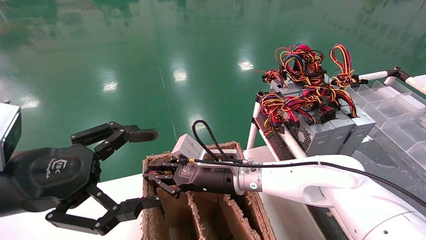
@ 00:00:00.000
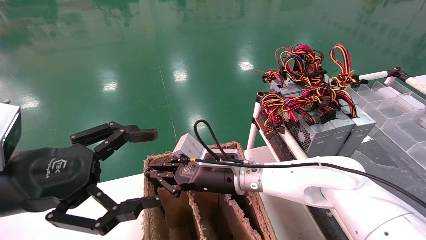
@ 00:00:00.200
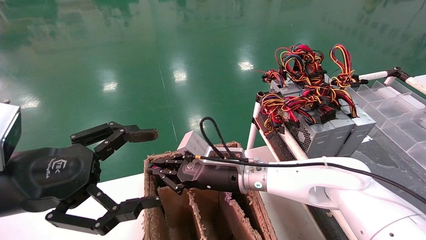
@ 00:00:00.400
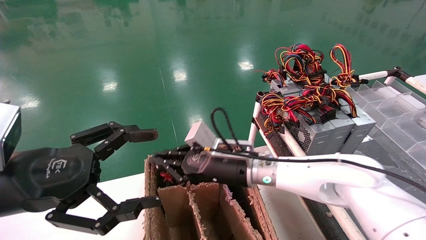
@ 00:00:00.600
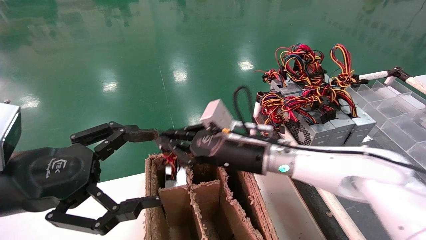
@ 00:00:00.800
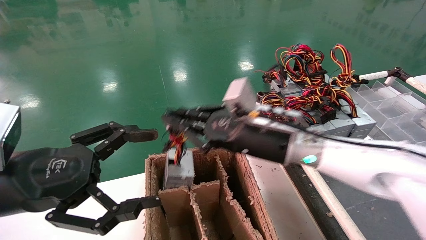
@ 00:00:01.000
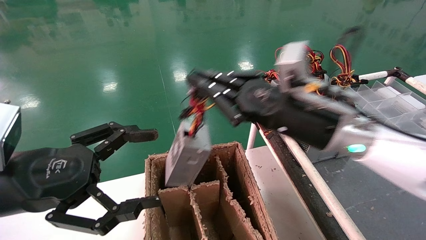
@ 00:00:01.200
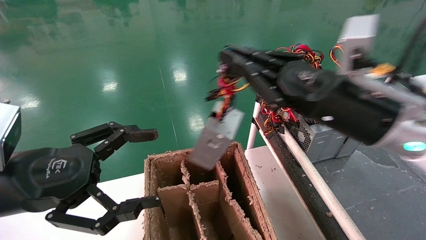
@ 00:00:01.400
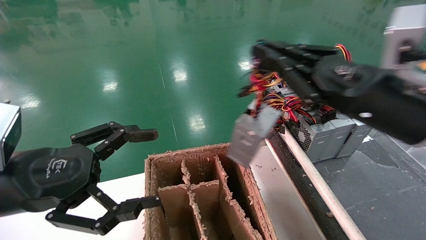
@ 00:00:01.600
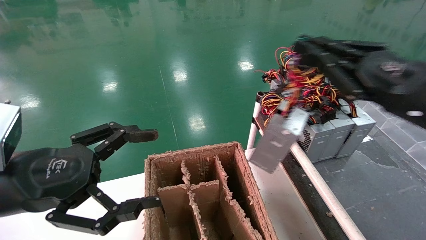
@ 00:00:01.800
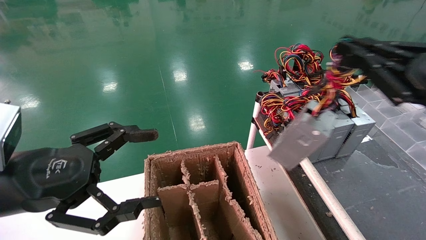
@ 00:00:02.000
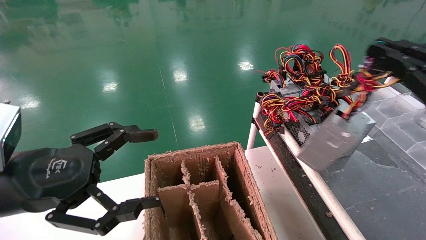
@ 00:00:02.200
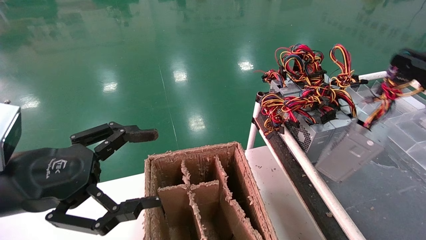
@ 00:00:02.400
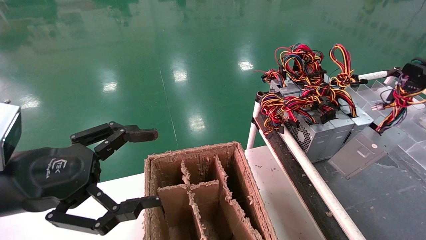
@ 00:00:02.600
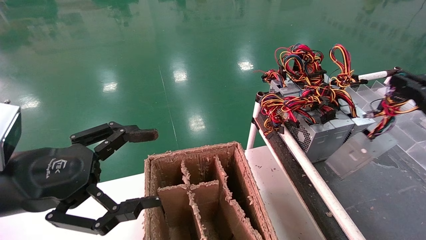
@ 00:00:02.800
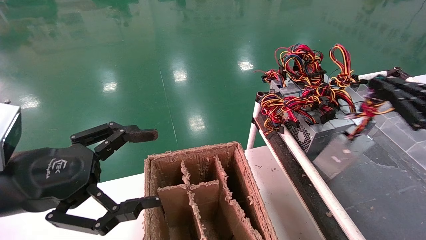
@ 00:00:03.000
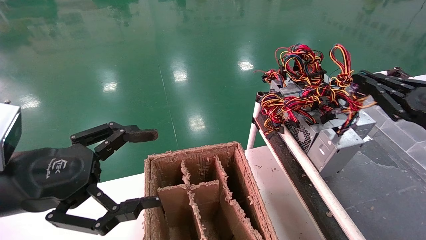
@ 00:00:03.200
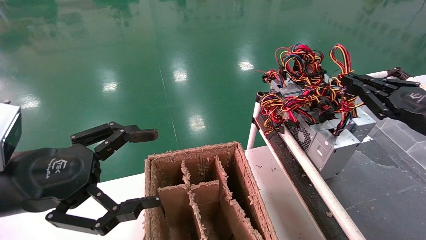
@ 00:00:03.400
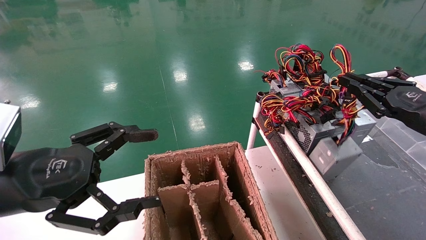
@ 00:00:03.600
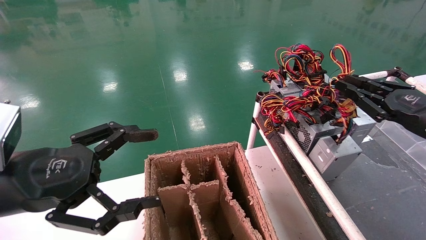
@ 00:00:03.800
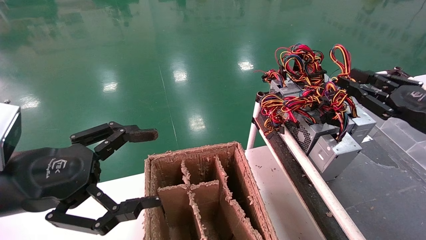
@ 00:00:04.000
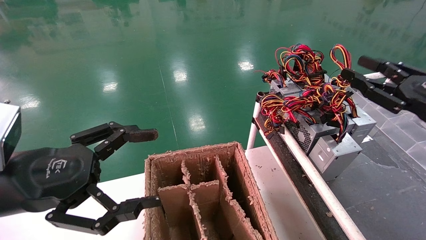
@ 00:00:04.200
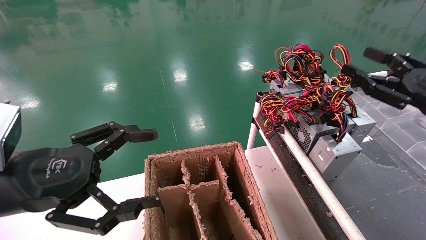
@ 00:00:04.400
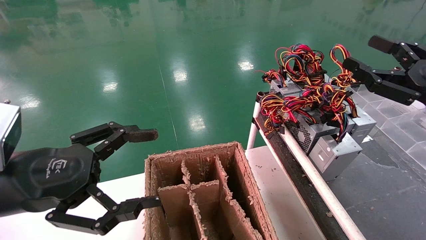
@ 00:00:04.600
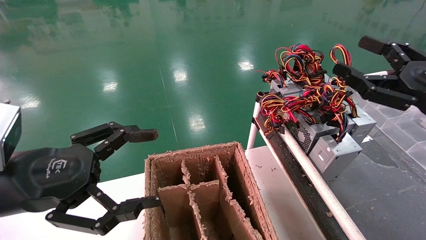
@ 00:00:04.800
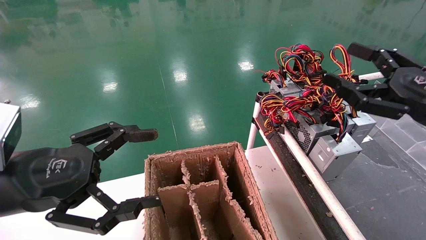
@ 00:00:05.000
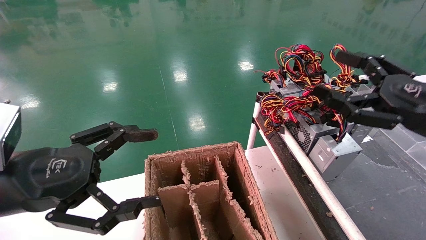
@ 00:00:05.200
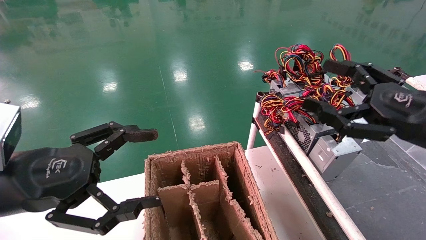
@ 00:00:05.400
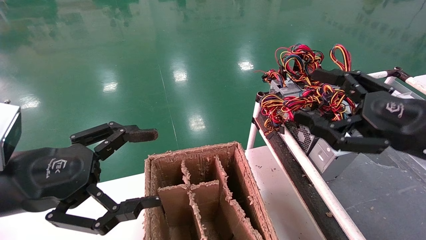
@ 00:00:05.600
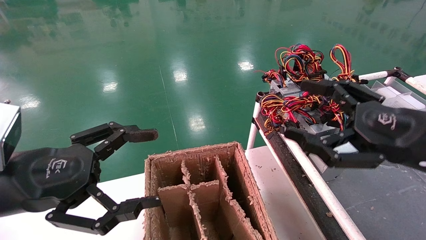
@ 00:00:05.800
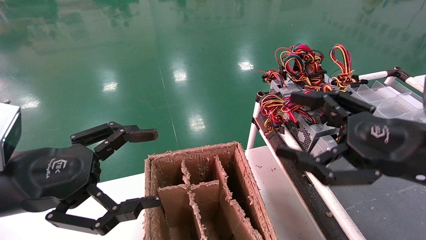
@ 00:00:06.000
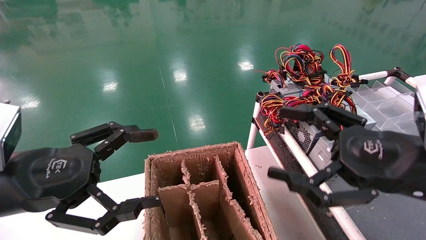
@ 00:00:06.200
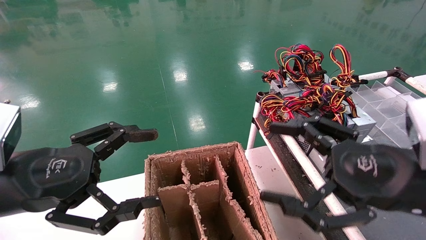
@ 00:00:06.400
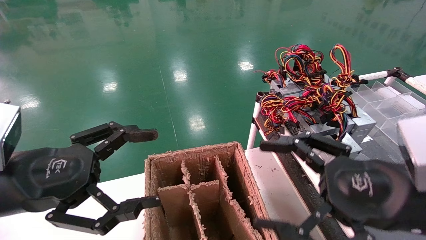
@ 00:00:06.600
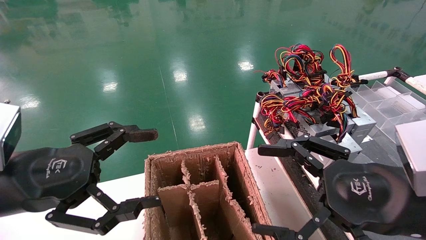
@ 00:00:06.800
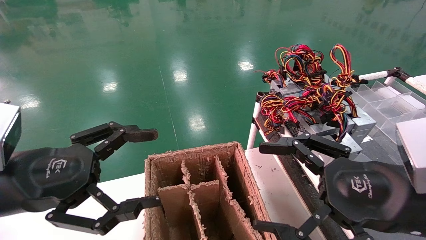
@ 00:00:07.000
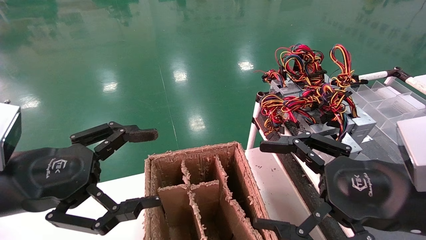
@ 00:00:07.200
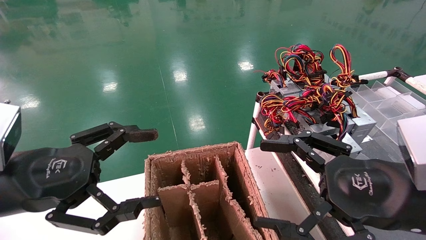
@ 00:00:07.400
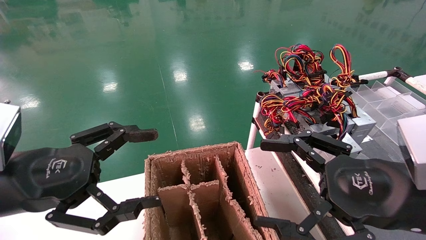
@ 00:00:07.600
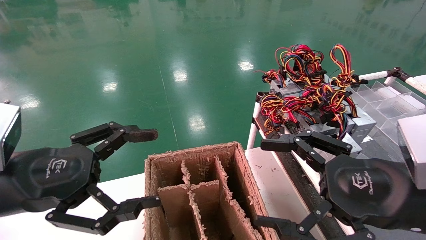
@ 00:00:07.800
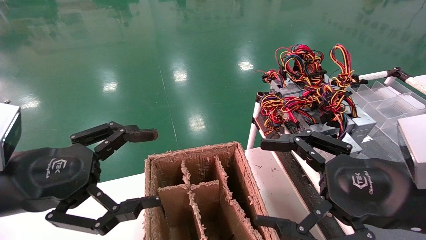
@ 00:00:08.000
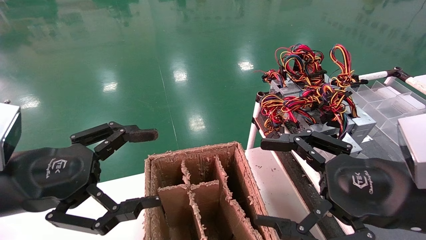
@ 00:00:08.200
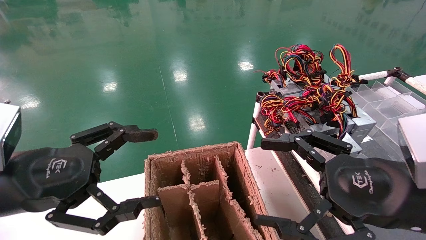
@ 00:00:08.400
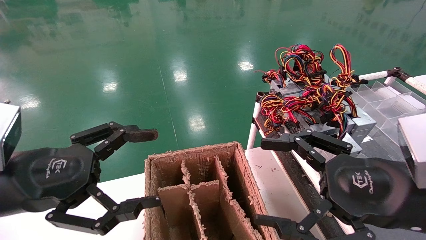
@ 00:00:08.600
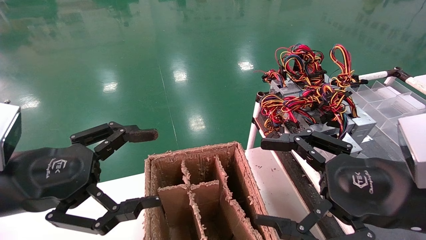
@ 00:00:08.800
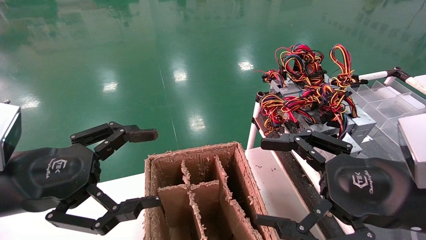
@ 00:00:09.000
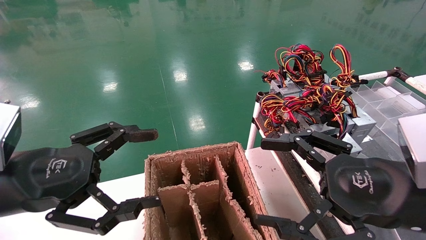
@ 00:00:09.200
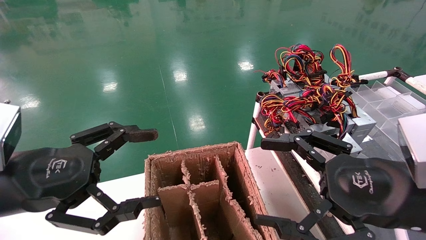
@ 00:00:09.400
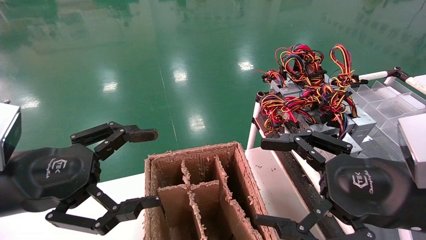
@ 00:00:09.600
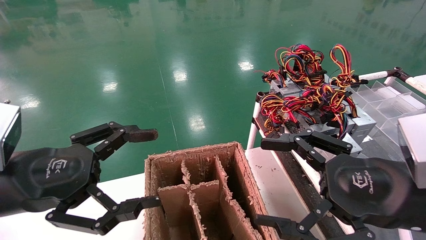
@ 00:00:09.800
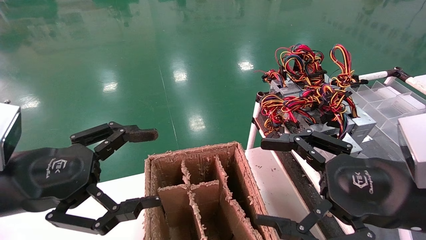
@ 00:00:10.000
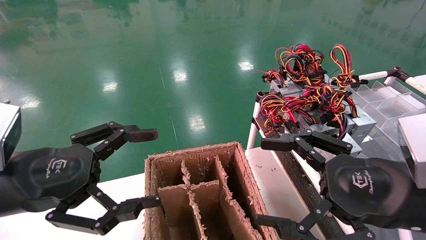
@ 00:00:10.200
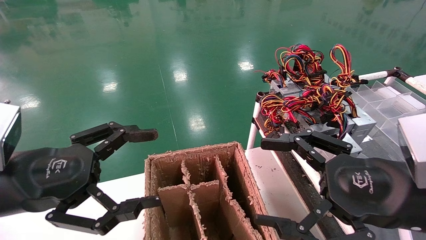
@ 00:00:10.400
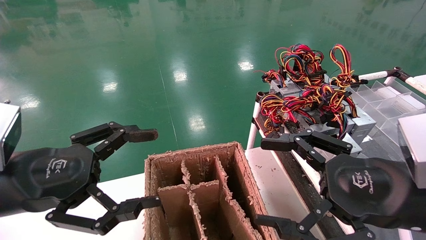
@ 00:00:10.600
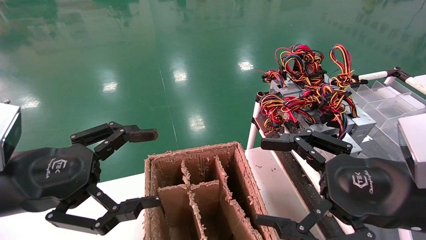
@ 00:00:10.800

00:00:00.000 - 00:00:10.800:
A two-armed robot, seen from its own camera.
Step, 00:00:00.600 - 00:00:03.800: Place the power supply on the operating table.
00:00:00.000 - 00:00:01.600: The right gripper travels to the right, upward and backward by about 30 cm.
00:00:01.600 - 00:00:03.000: The right gripper shifts some 15 cm to the right.
00:00:03.000 - 00:00:04.600: The right gripper changes place by some 5 cm, and opens.
00:00:04.600 - 00:00:06.200: The right gripper heads to the left and backward, covering approximately 15 cm.
00:00:06.200 - 00:00:07.800: There are only small adjustments of the grippers.
00:00:07.800 - 00:00:10.800: Both grippers stay about where they are.
